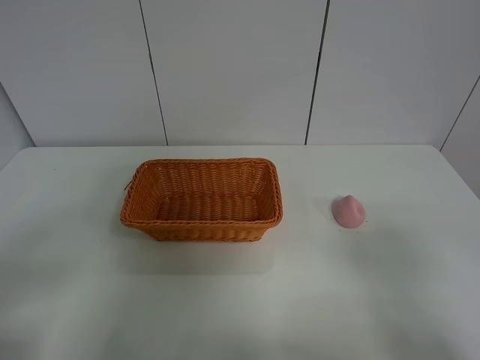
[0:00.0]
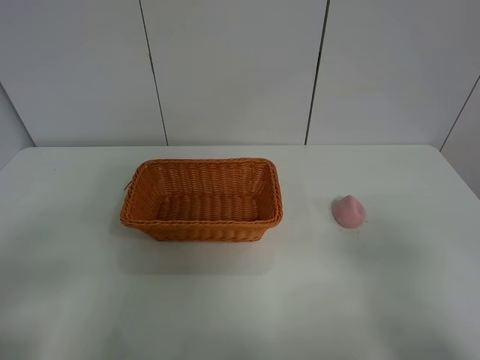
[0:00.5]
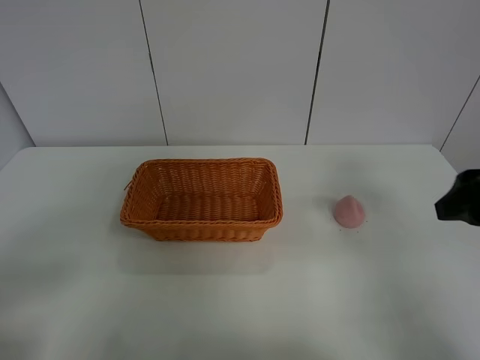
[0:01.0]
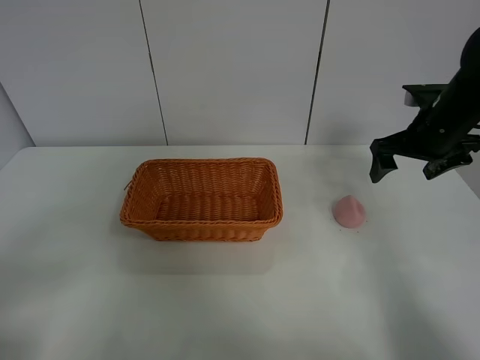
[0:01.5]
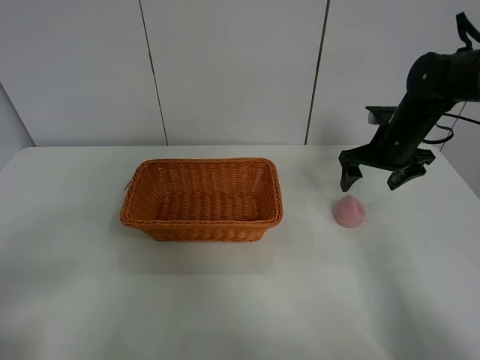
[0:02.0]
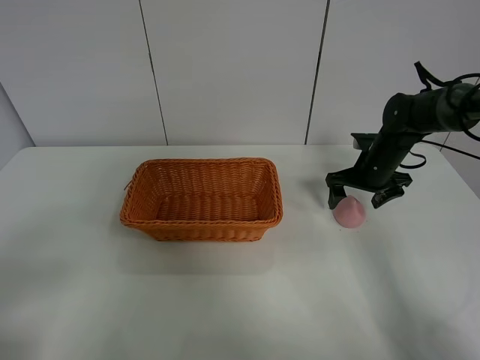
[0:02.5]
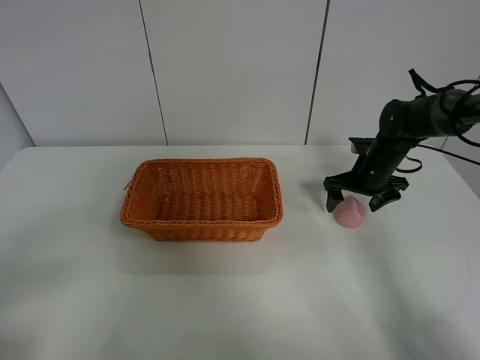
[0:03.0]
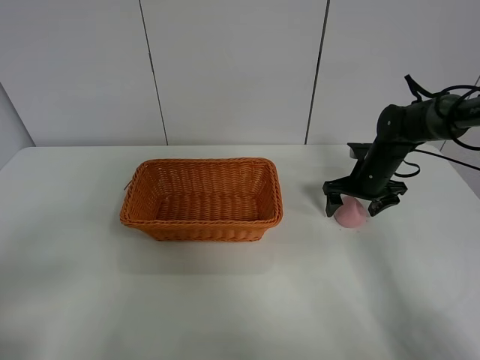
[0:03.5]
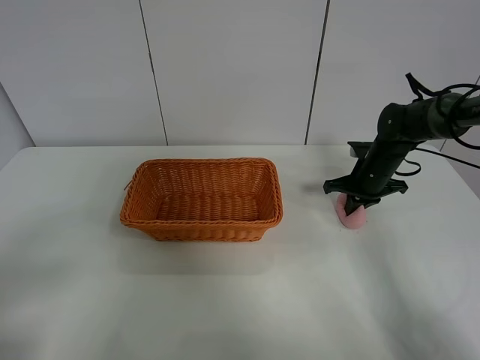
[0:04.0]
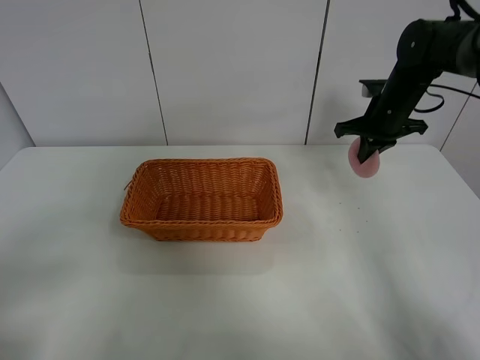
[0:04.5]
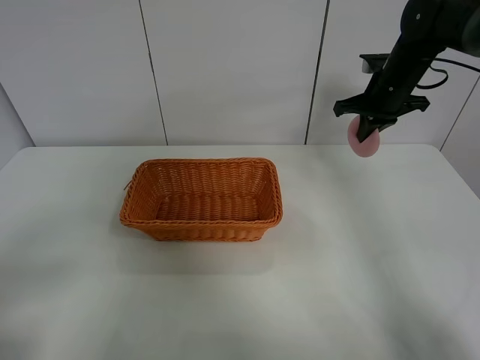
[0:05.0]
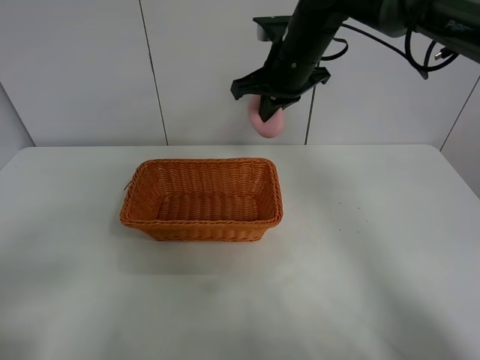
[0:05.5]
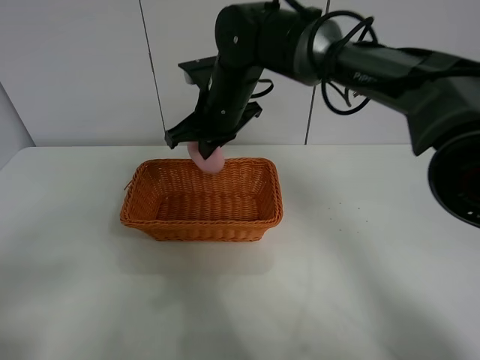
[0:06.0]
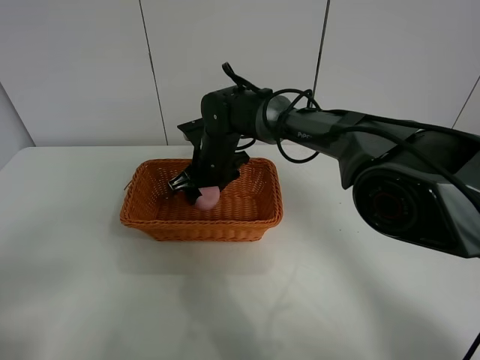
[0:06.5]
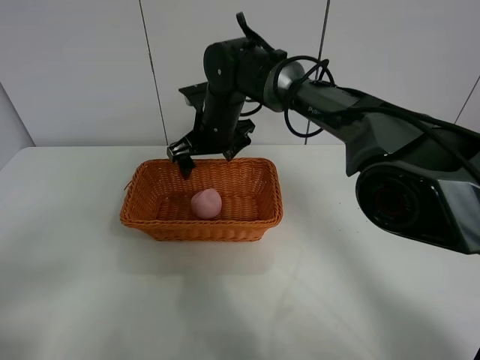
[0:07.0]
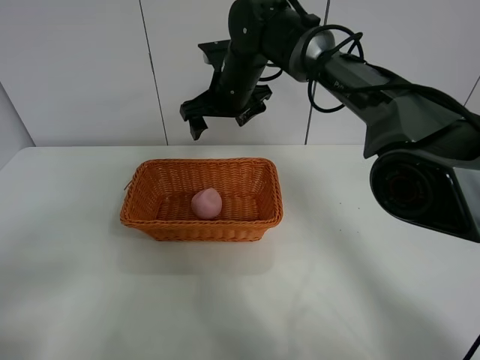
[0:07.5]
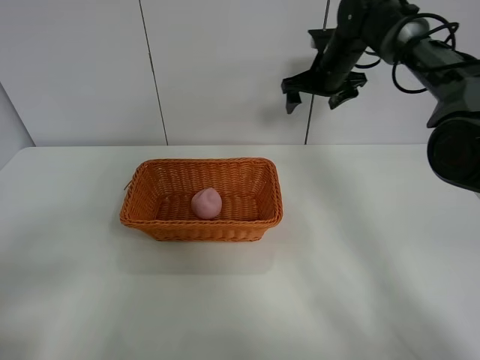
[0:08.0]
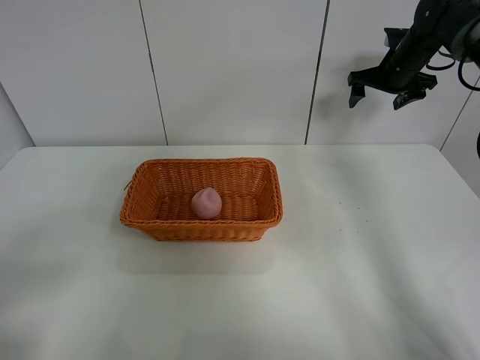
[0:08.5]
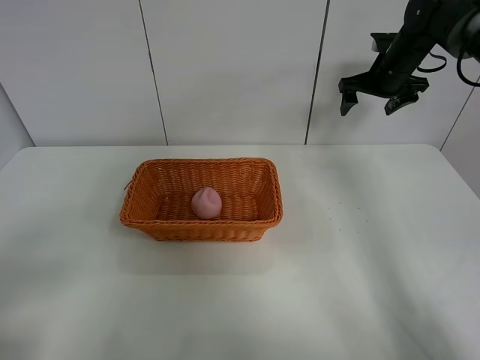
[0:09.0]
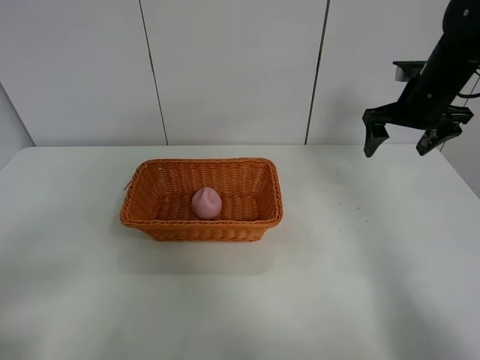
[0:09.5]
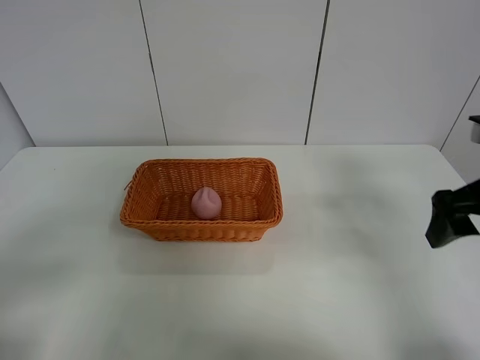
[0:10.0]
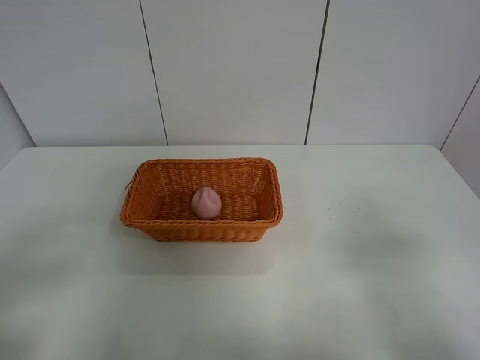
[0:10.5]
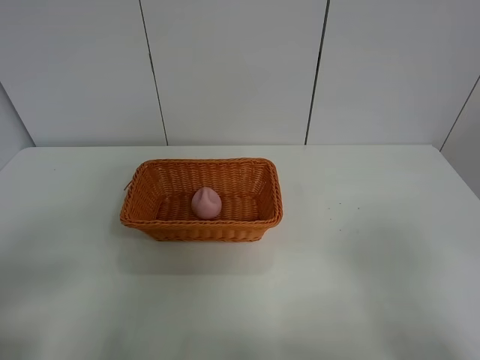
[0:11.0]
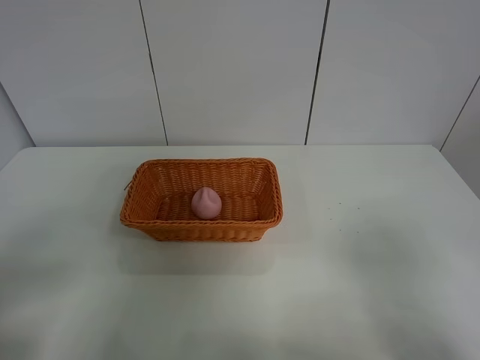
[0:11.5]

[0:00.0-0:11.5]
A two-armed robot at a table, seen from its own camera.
Step, 0:00.0 to 0:04.0: Grasp the peach with right gripper.
Step, 0:04.5 to 0:07.0: Place the peach in the basket with right gripper.
0:00.0 to 0:02.0: The right gripper travels forward by about 40 cm.
0:02.0 to 0:04.0: The right gripper heads downward, covering roughly 10 cm, and closes.
0:04.0 to 0:06.0: The right gripper travels to the left and upward by about 30 cm.
0:06.0 to 0:07.5: The right gripper travels forward by about 5 cm, reaches about 10 cm downward, then returns, and opens its fingers.
0:07.5 to 0:09.5: The right gripper moves to the right, some 25 cm.
0:09.5 to 0:11.5: The right gripper travels backward by about 40 cm.
